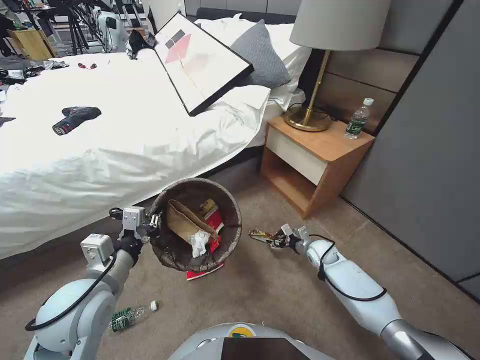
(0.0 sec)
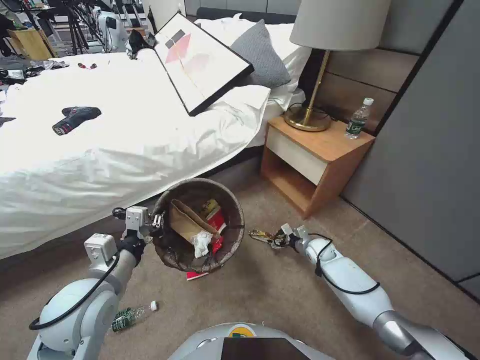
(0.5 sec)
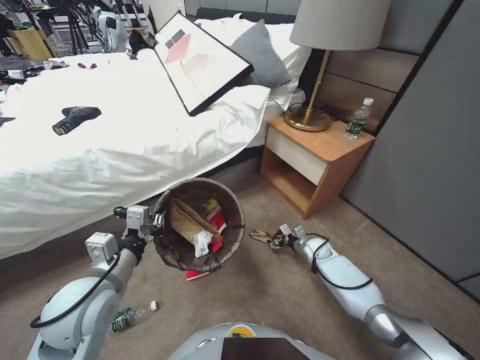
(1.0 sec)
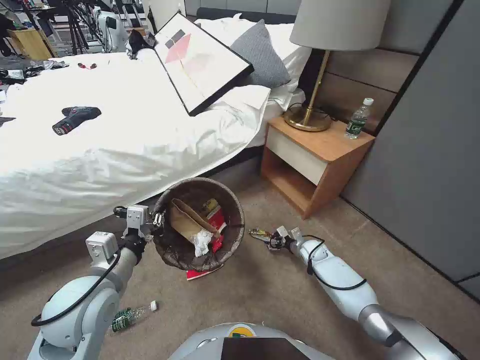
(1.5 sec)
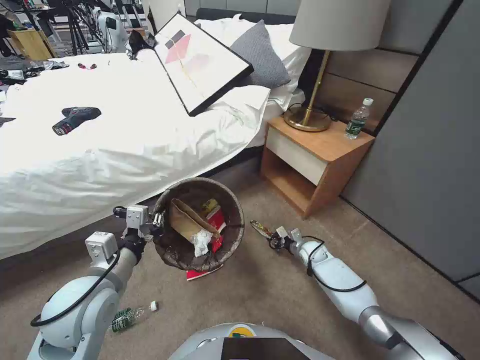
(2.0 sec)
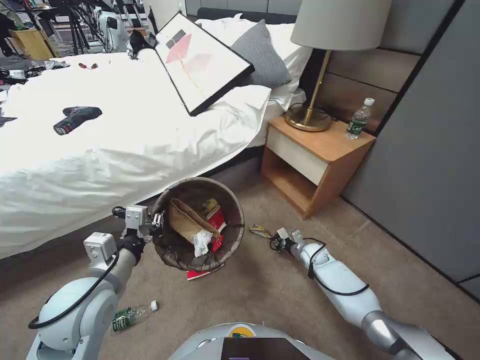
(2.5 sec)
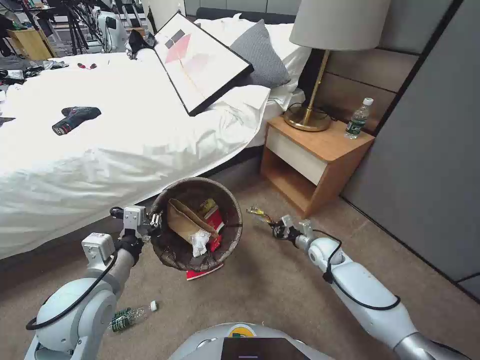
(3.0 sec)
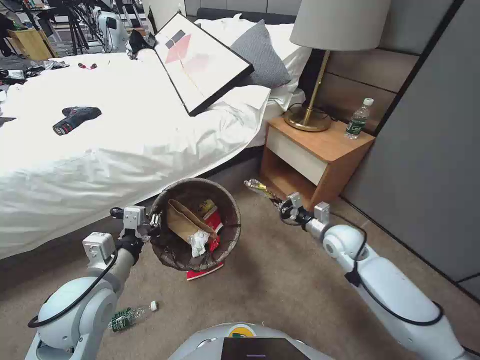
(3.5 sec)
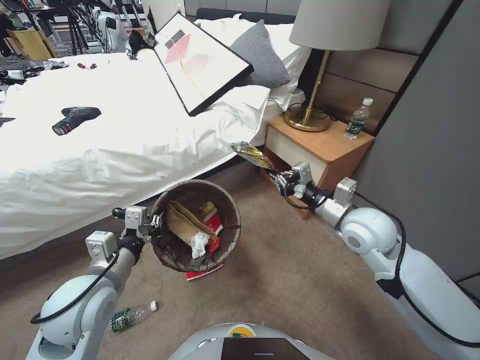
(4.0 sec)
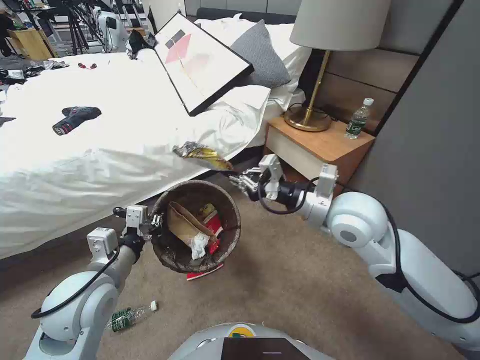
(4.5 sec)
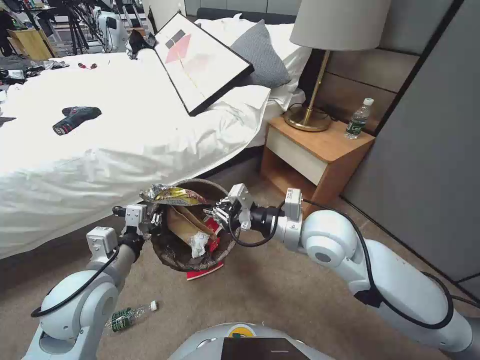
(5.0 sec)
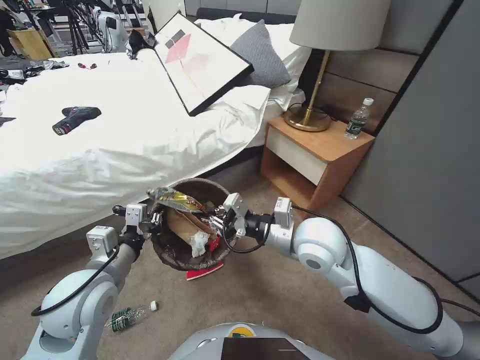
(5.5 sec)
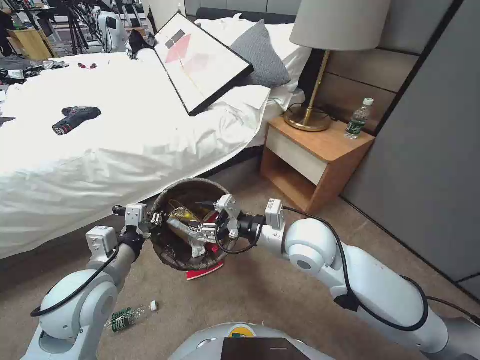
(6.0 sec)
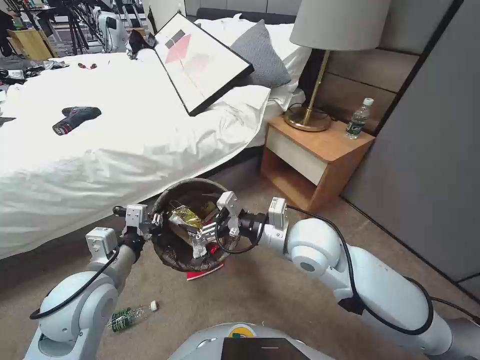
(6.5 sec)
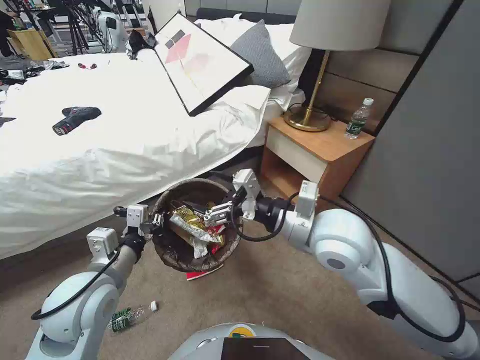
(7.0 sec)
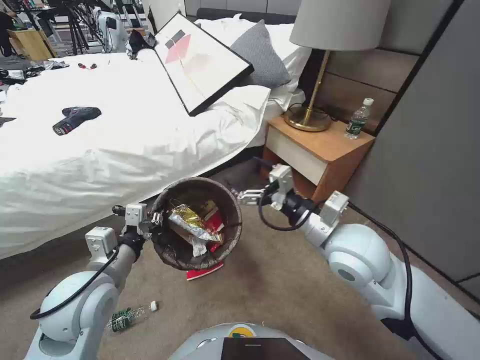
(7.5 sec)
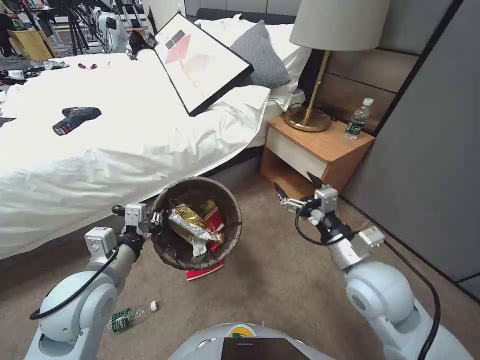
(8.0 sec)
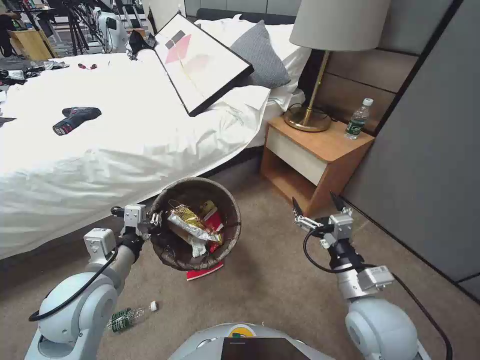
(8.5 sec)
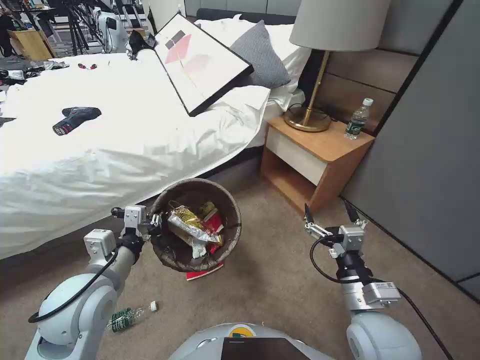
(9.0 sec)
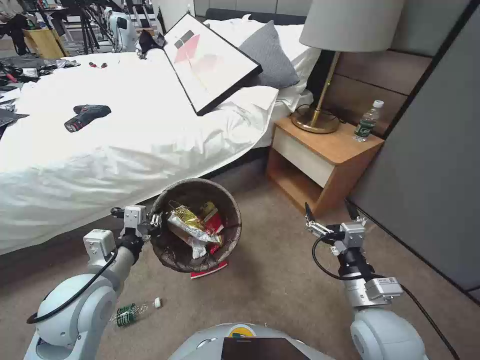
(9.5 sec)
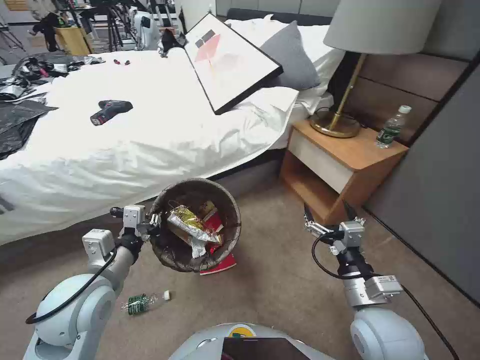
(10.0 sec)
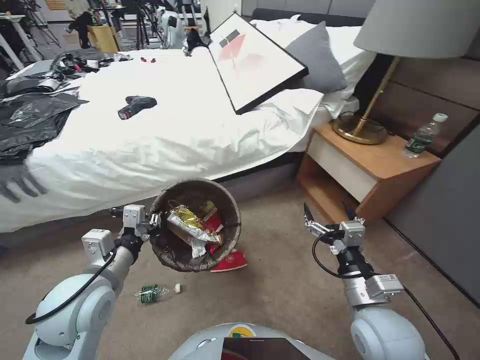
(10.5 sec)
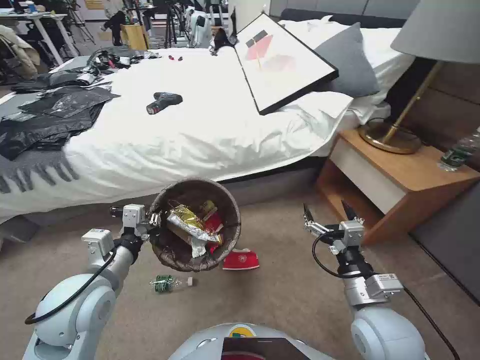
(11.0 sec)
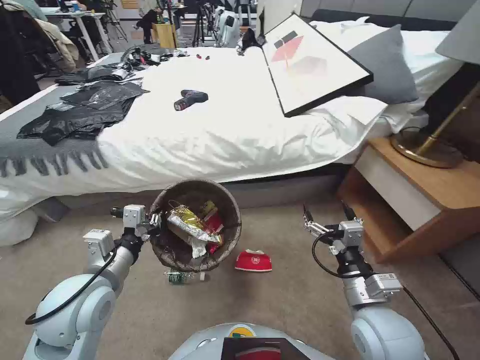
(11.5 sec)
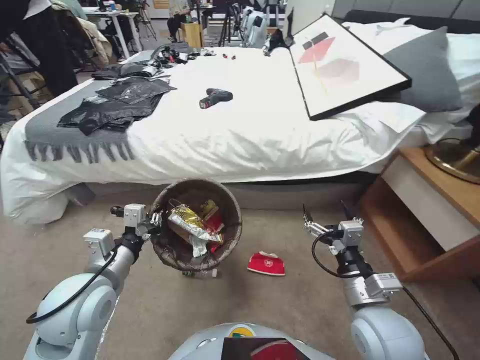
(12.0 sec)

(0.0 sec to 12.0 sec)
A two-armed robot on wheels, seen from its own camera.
Task of the whole recording: Pick up the trash bin, then pick up the garbage from the floor and place it into the trash bin.
0.0 sec - 2.0 sec: The right gripper closes up.
2.0 sec - 4.0 sec: The right gripper goes some 35 cm upward, and closes up.
4.0 sec - 6.0 sec: The right gripper travels to the left by some 15 cm, and opens.
6.0 sec - 8.0 sec: The right gripper heads to the right and backward, covering roughly 15 cm, and opens its fingers.
8.0 sec - 10.0 sec: The right gripper travels backward and downward by some 10 cm.

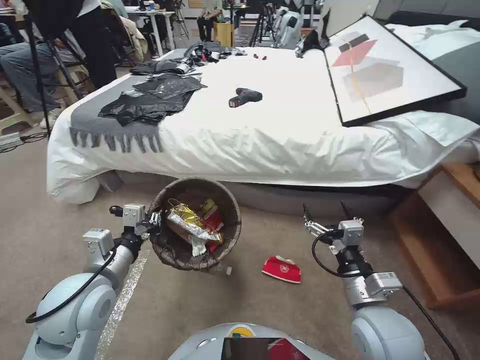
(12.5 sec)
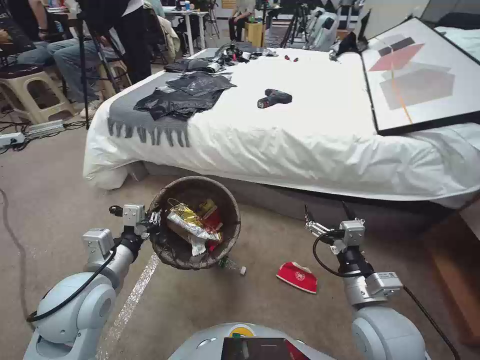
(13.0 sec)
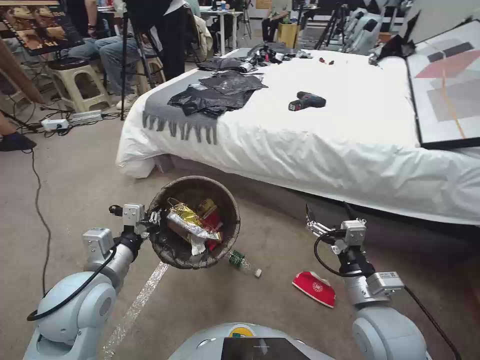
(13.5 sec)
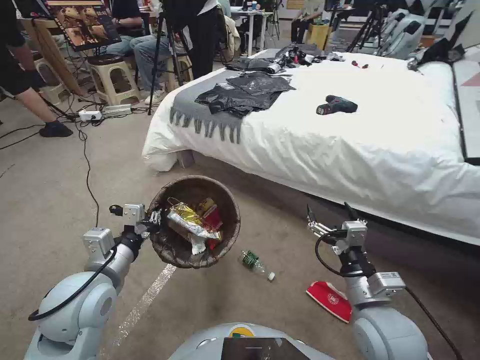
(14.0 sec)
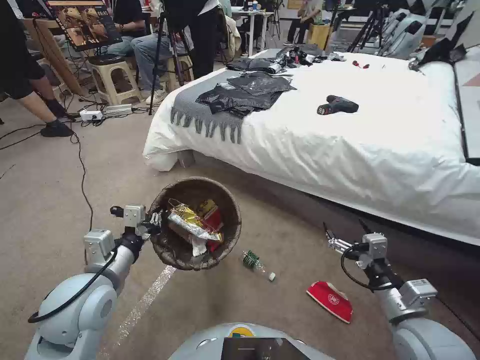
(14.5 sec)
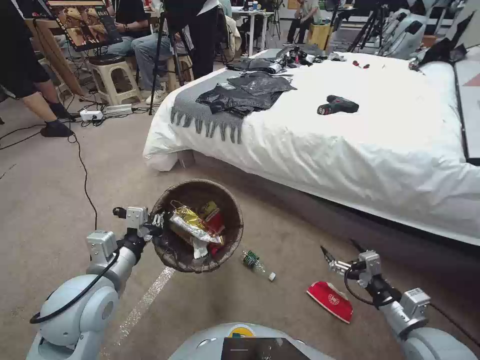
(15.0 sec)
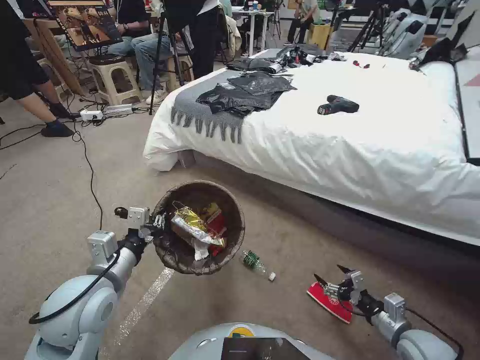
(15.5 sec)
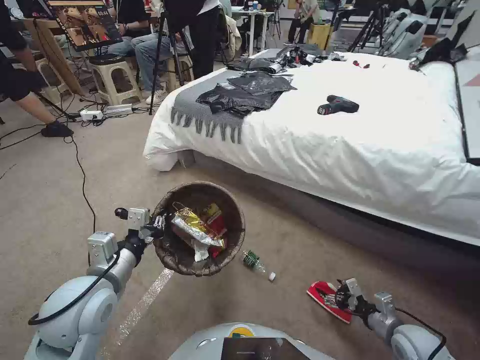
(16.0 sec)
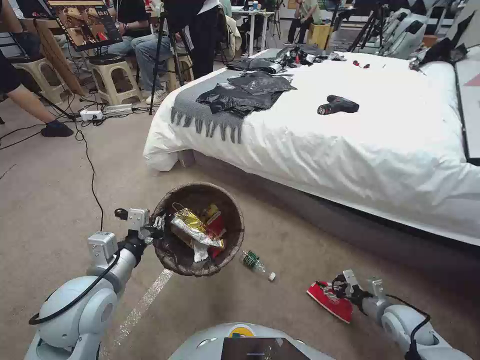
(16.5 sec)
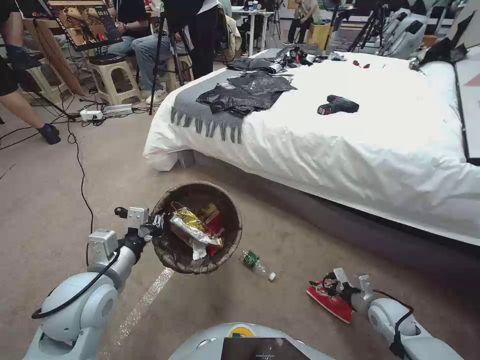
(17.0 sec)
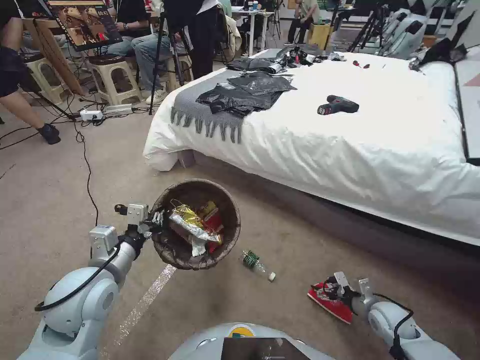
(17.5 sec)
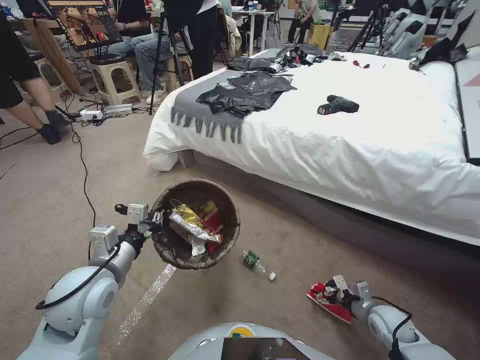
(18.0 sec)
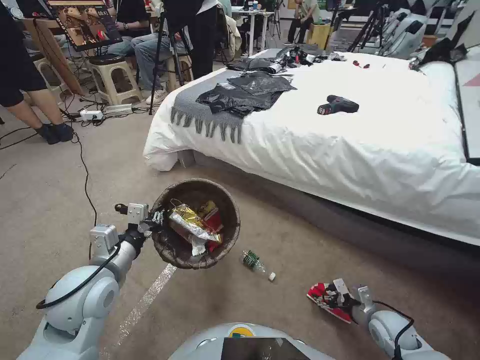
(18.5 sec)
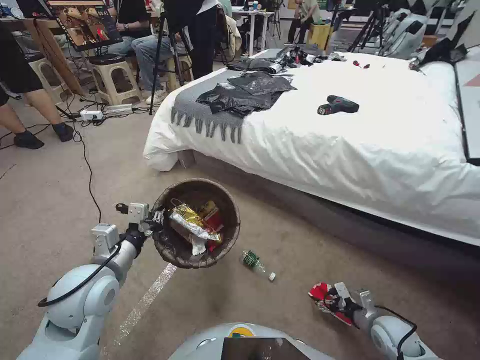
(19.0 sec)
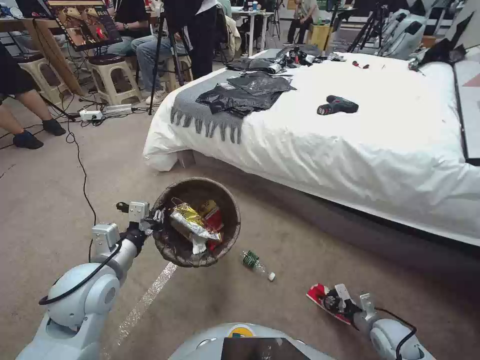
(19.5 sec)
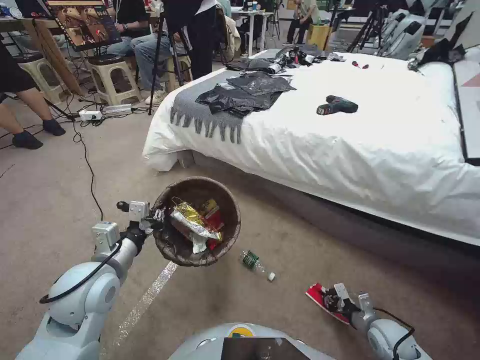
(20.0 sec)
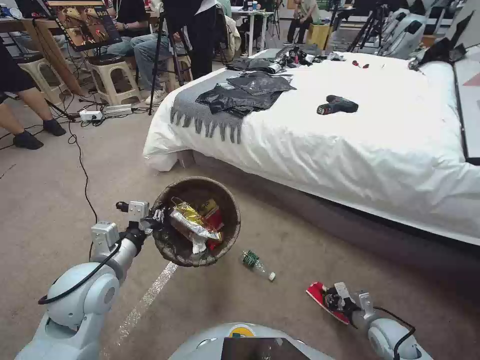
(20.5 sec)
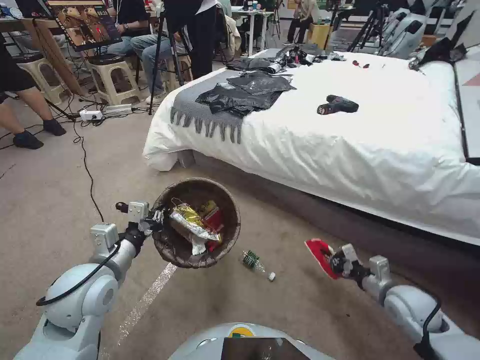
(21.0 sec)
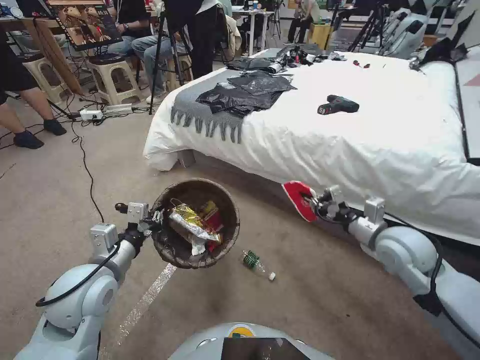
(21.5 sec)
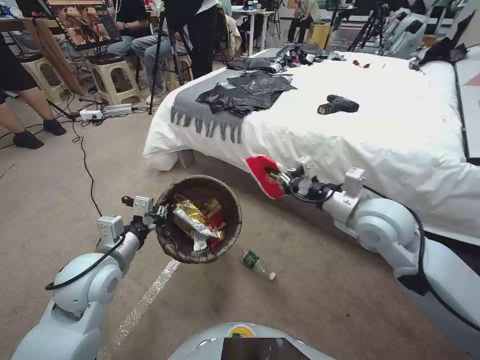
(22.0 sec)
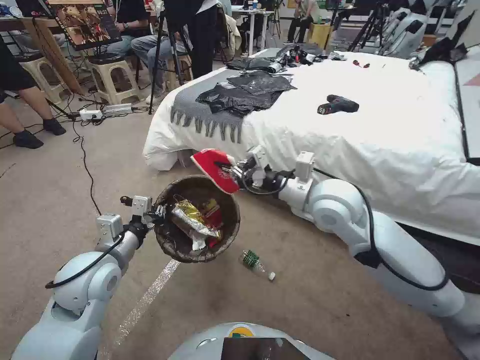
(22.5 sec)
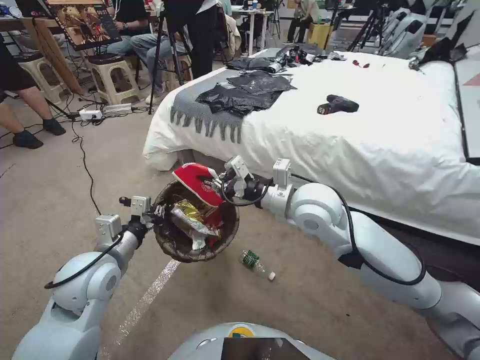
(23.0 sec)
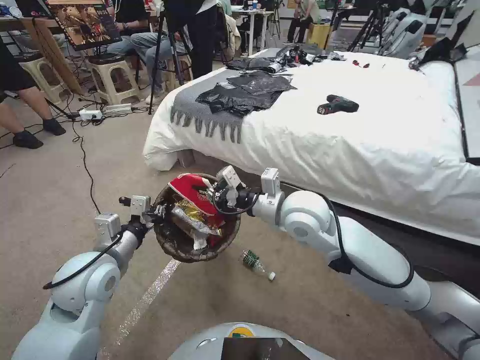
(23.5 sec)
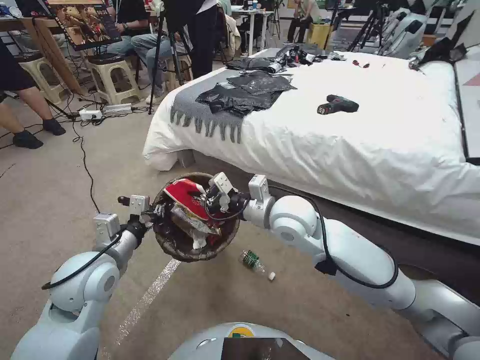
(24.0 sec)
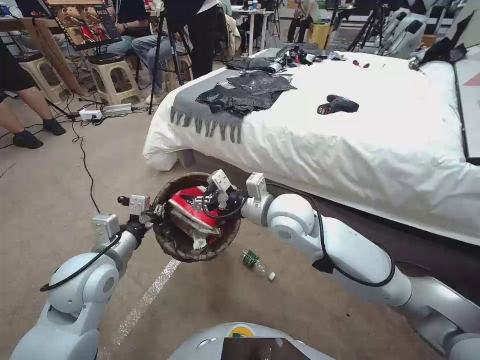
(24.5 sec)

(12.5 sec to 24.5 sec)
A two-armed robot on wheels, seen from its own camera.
Task of the whole recording: Pick up the trash bin, then pick up the garbage from the floor and place it into the trash bin.
12.5 sec - 14.5 sec: The right gripper travels to the right by approximately 5 cm.
14.5 sec - 16.5 sec: The right gripper travels downward and to the right by approximately 20 cm.
16.5 sec - 18.5 sec: The grippers make only small movements.
18.5 sec - 20.5 sec: The right gripper closes.
20.5 sec - 22.5 sec: The right gripper travels upward, to the left and forward by approximately 50 cm.
22.5 sec - 24.5 sec: The right gripper travels to the left by about 10 cm, and opens up.

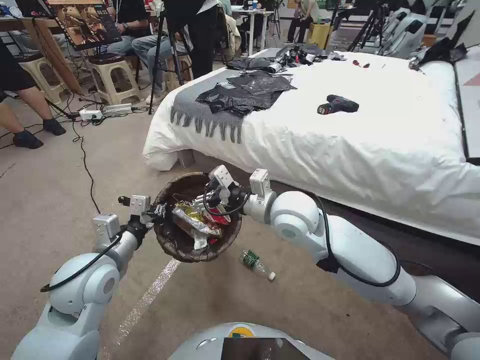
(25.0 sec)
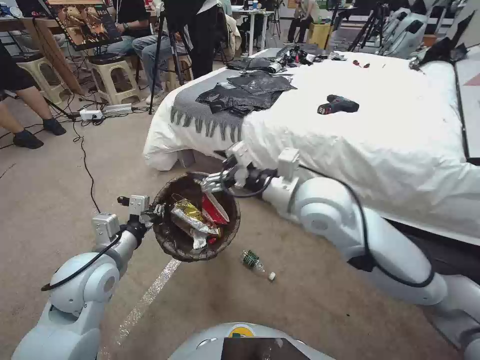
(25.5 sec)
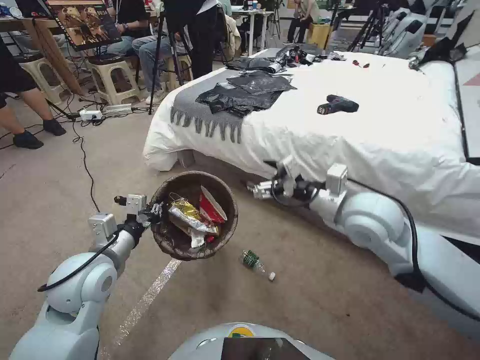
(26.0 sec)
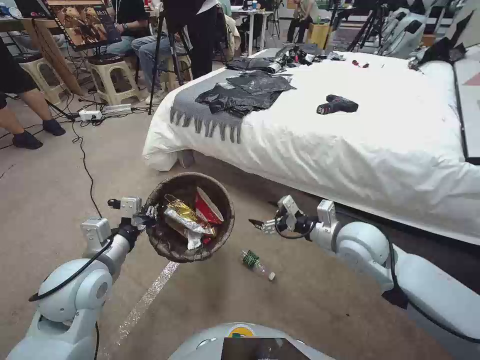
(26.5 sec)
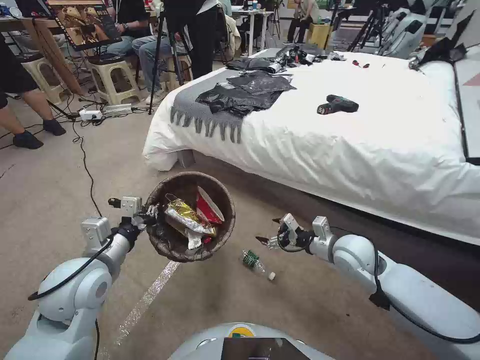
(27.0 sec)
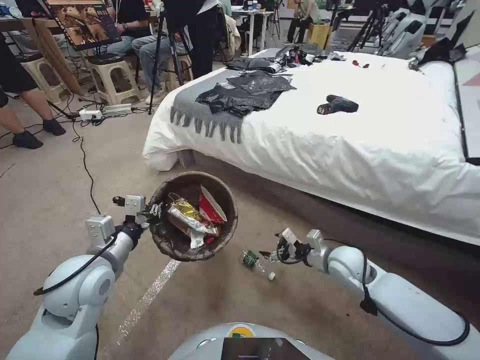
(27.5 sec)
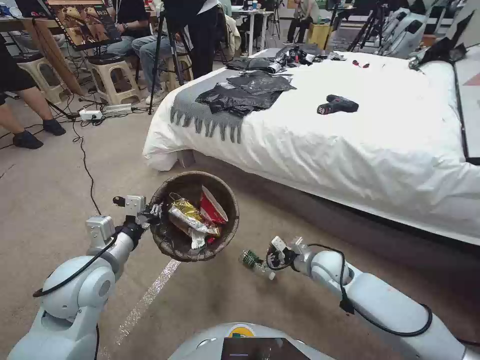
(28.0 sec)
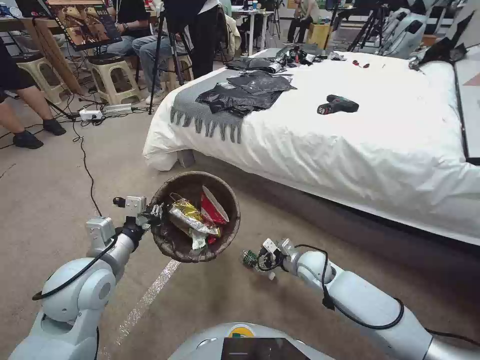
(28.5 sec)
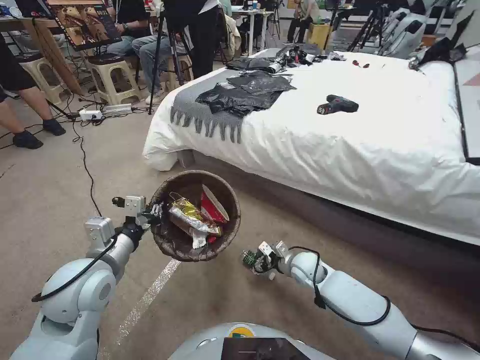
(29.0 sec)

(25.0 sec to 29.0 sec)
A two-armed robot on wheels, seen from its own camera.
Task of the whole recording: Pick up the trash bin, then pick up the garbage from the floor and place it into the trash bin.
25.0 sec - 27.0 sec: The right gripper is displaced to the right and downward by about 25 cm.
27.0 sec - 29.0 sec: The right gripper heads downward and to the left, covering roughly 15 cm.
